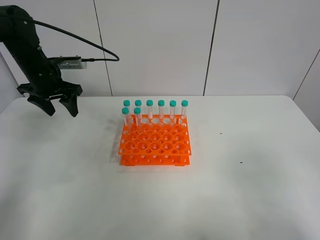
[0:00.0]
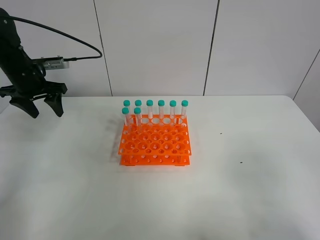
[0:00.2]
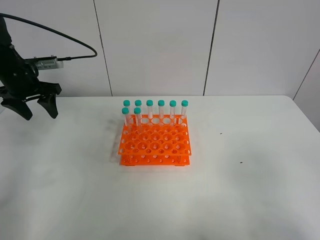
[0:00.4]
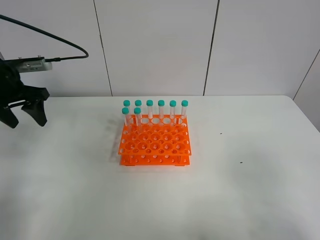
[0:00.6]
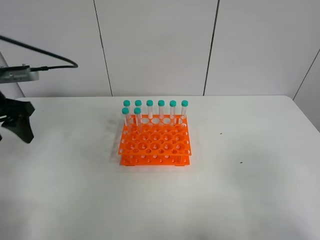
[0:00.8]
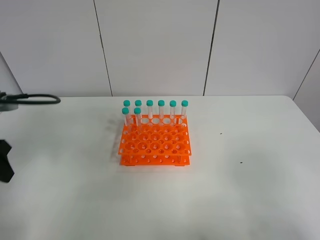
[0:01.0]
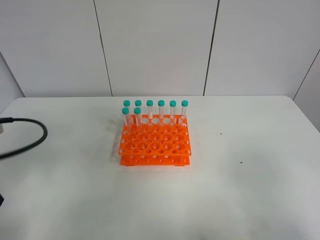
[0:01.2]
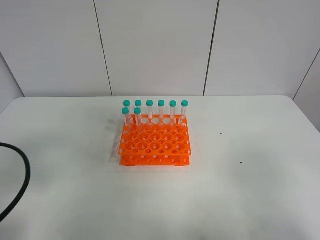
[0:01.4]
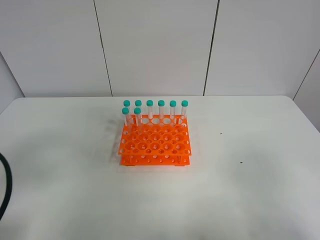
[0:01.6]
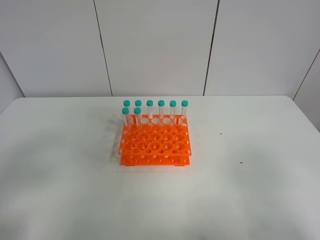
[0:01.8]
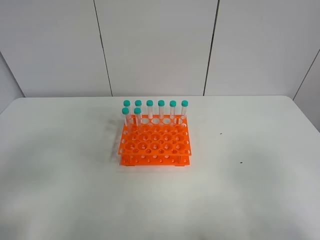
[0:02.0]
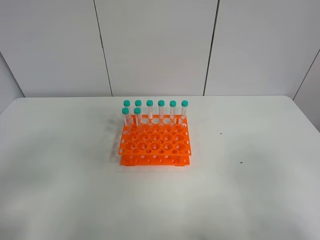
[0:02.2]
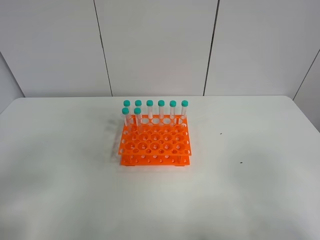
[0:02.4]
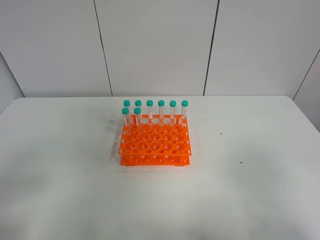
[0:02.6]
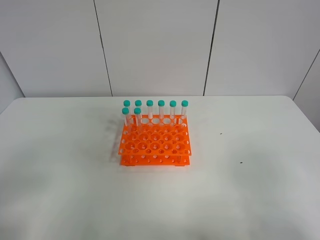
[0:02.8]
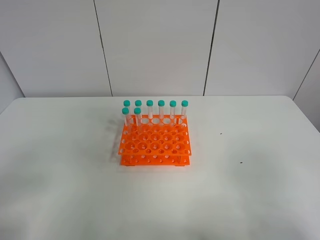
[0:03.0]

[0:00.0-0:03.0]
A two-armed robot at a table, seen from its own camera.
Task of the whole recording: Put the test tube on the table back onto the test tube rack.
0:00.0 to 0:01.6: The left gripper shifts roughly 35 cm backward.

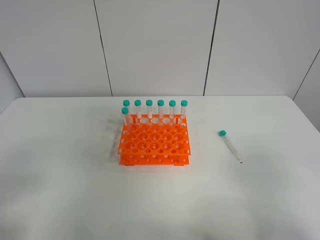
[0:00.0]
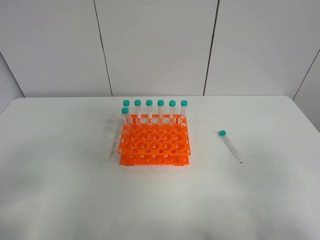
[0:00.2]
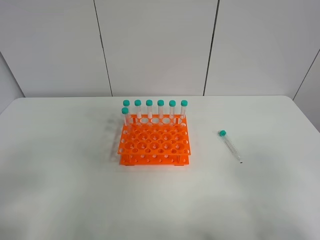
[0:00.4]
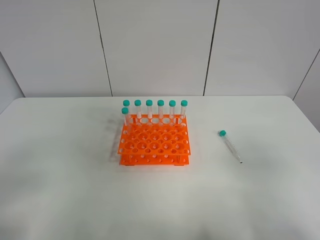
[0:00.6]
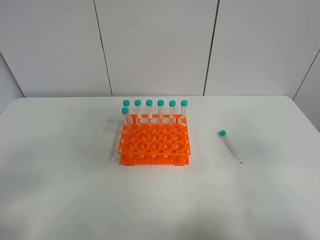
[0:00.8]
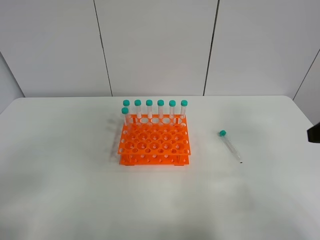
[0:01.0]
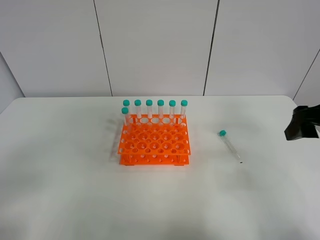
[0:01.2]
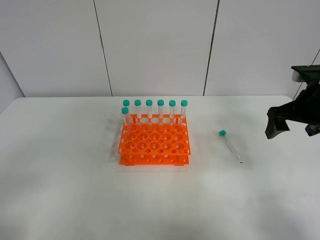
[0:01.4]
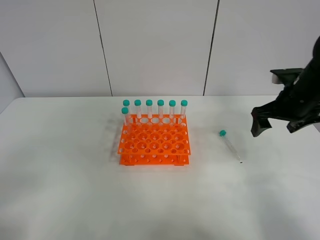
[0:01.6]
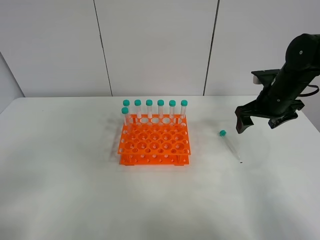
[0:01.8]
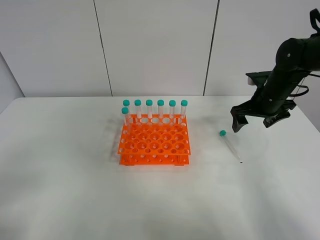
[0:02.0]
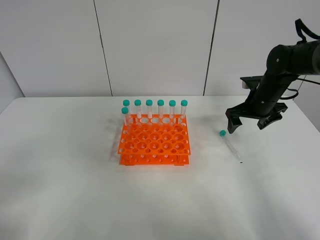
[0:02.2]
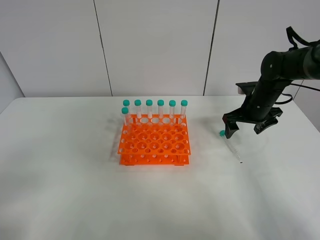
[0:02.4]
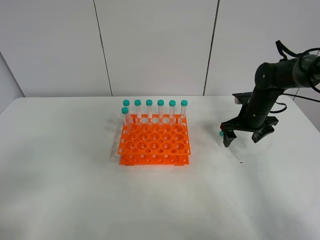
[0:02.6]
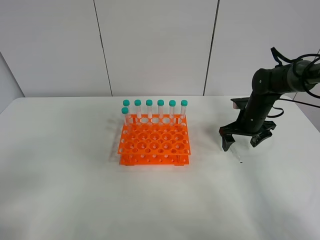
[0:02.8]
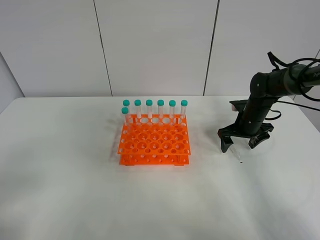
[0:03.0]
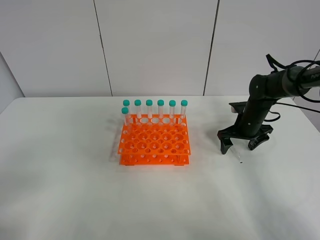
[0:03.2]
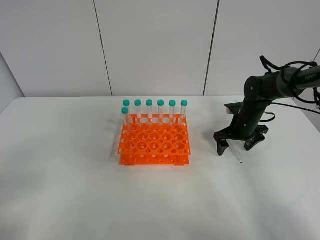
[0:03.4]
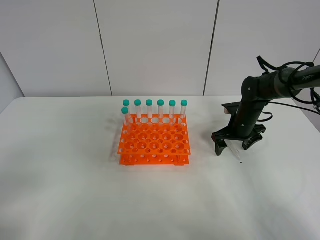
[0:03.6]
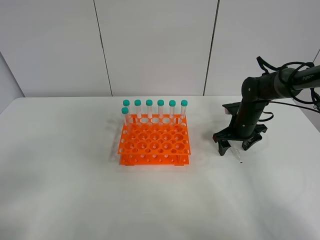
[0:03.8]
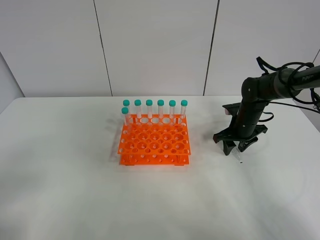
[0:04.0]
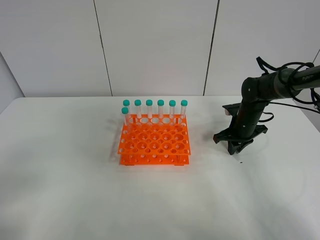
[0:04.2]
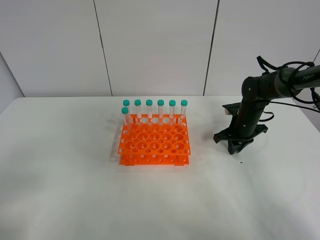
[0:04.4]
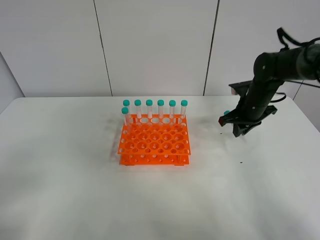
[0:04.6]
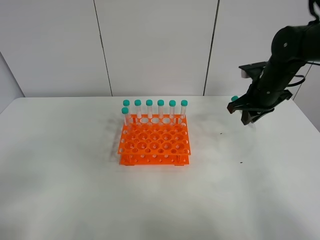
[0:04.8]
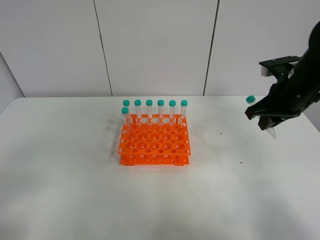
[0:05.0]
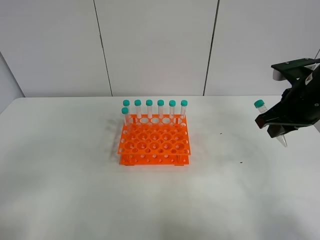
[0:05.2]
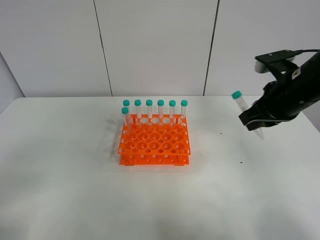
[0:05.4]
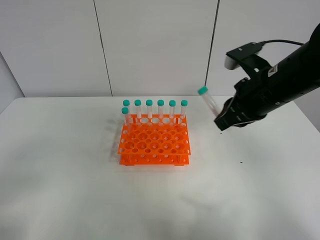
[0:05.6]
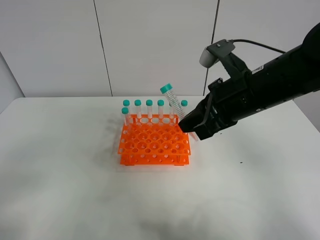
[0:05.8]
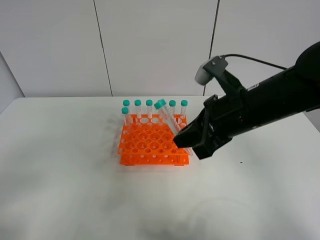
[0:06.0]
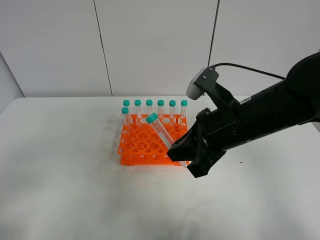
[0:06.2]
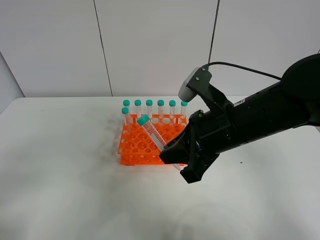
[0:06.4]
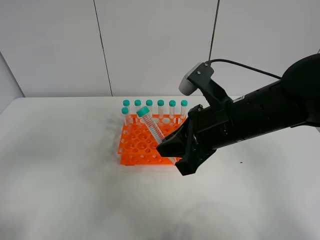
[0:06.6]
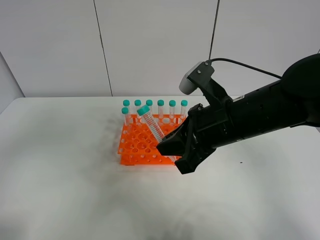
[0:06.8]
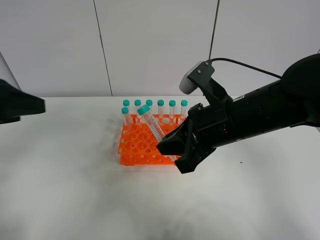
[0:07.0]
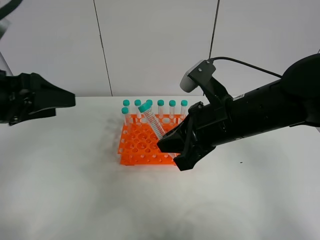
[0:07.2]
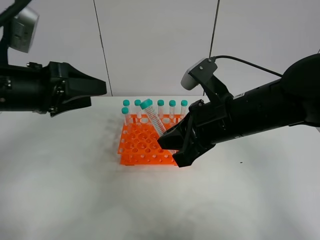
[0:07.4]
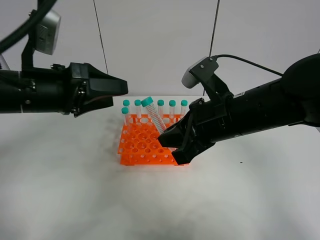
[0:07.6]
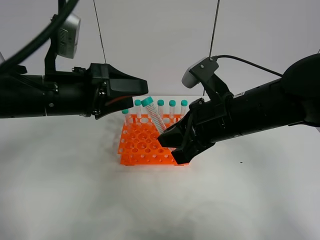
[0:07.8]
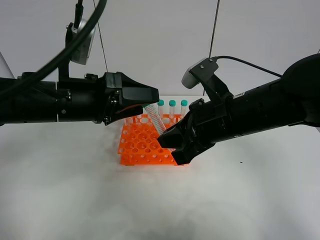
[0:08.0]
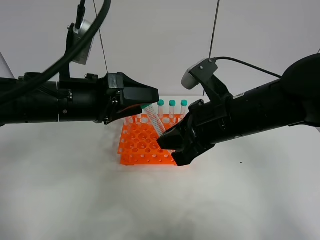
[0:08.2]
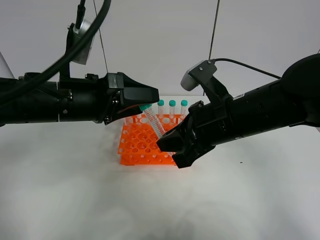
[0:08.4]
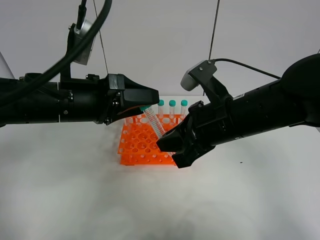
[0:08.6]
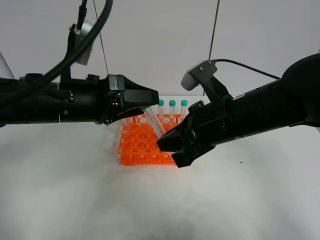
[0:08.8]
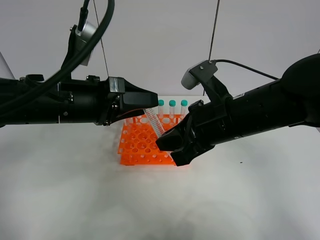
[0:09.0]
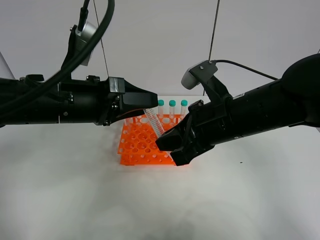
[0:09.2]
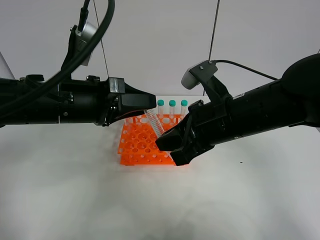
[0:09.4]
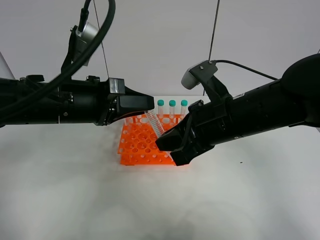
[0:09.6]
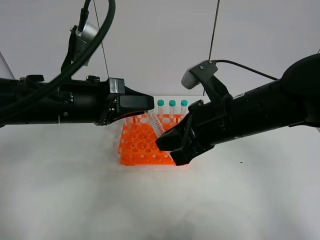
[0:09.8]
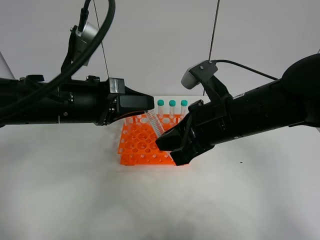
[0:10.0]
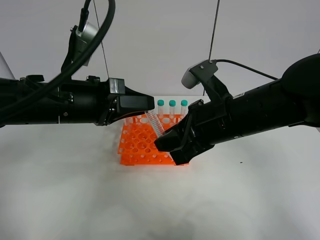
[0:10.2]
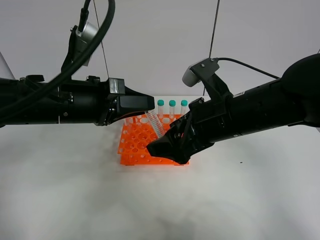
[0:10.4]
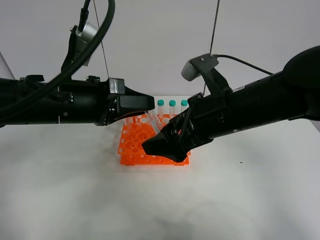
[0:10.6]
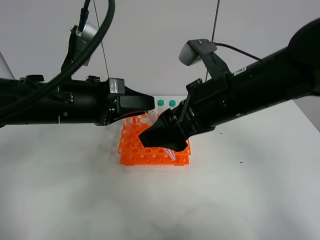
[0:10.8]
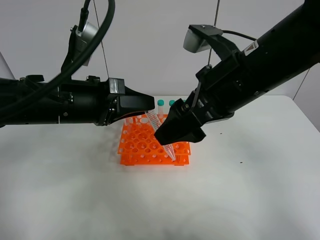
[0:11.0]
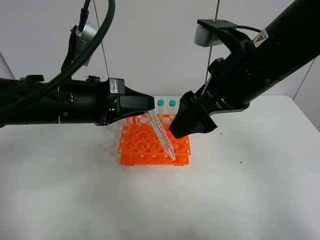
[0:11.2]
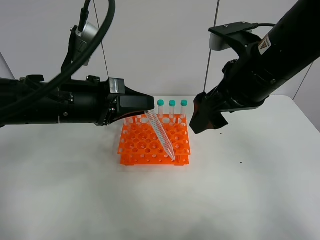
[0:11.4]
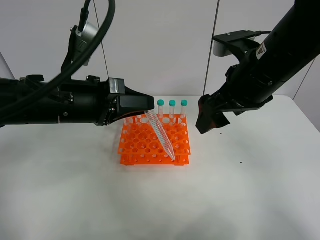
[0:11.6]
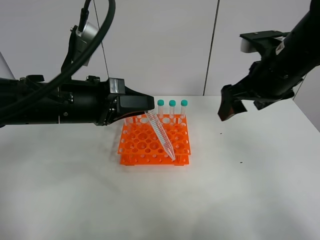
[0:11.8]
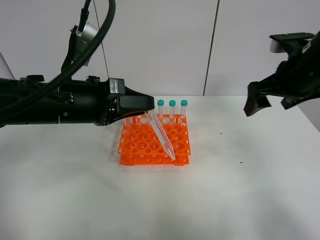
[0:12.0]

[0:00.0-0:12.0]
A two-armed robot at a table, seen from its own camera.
Task of the whole recording: Put the test tube on the table back onto the test tube rack.
Step, 0:00.0 to 0:04.2: Pick up the test tube with the right gripper.
Step, 0:04.4 to 0:10.4: Move the test tube from the right gripper to the left gripper.
0:00.0 to 0:01.6: The right gripper is displaced forward by about 35 cm.
0:01.6 to 0:03.0: The right gripper shifts about 15 cm downward and forward.
0:03.0 to 0:04.4: The right gripper closes up.
0:04.4 to 0:06.0: The right gripper heads backward, upward and to the left, covering roughly 25 cm.
0:06.0 to 0:07.6: The left gripper goes roughly 25 cm forward and to the right.
0:07.6 to 0:09.0: The grippers make only small movements.
0:09.0 to 0:10.4: The left gripper closes its fingers. The right gripper opens up.
0:10.4 to 0:12.0: The right gripper travels to the right and forward by some 15 cm.

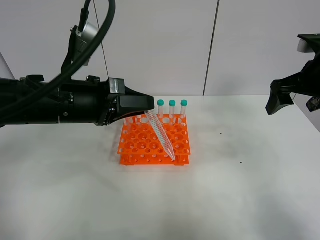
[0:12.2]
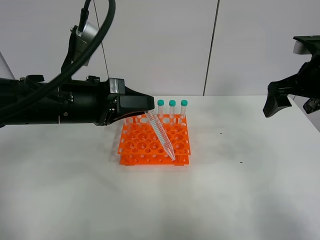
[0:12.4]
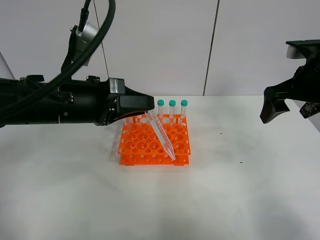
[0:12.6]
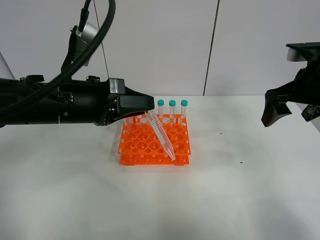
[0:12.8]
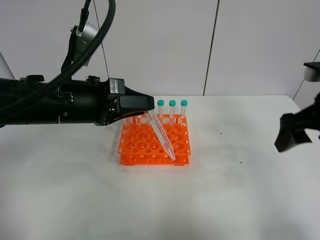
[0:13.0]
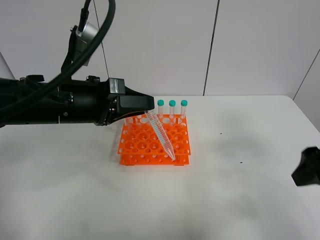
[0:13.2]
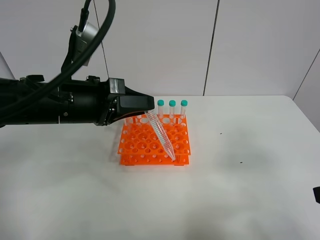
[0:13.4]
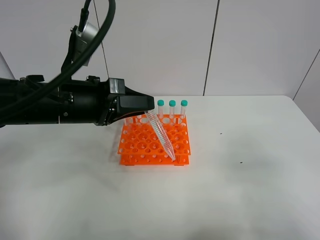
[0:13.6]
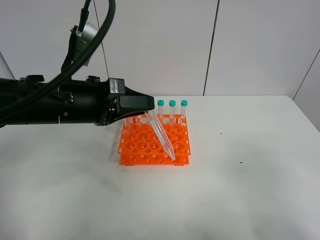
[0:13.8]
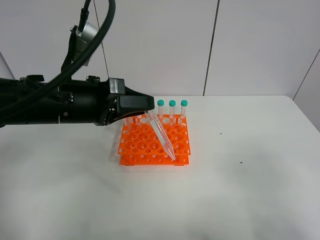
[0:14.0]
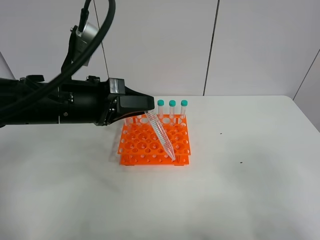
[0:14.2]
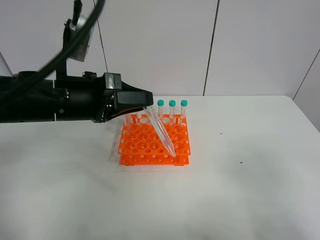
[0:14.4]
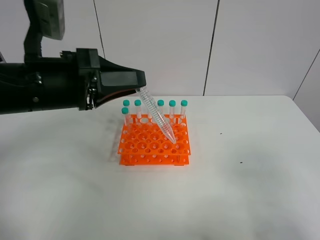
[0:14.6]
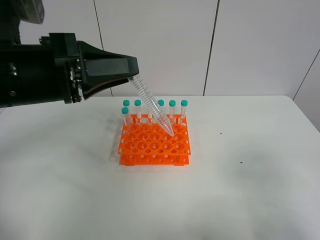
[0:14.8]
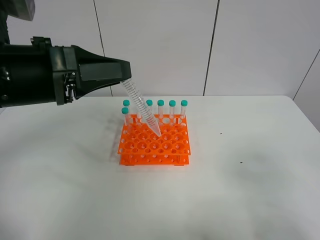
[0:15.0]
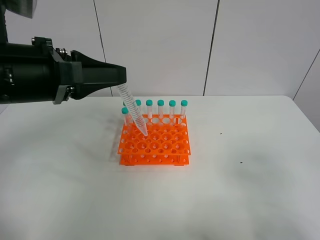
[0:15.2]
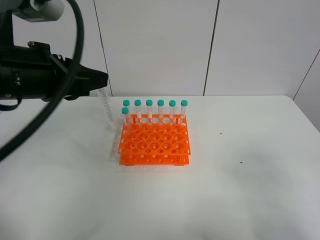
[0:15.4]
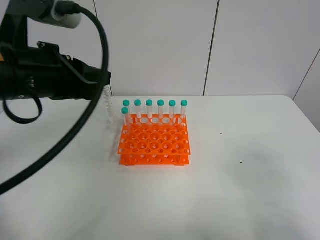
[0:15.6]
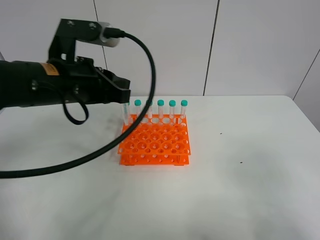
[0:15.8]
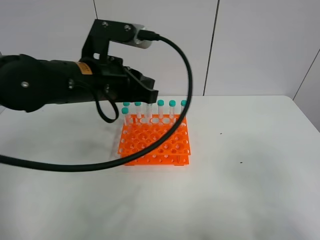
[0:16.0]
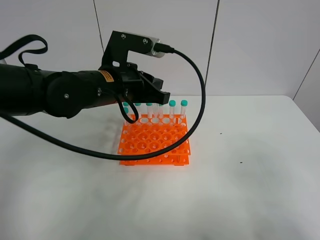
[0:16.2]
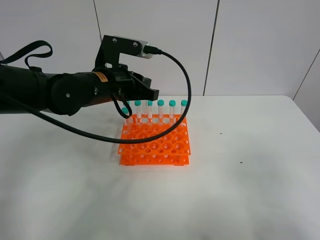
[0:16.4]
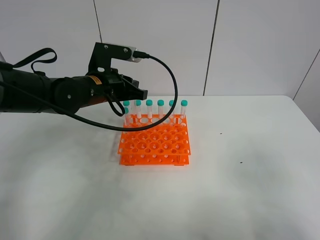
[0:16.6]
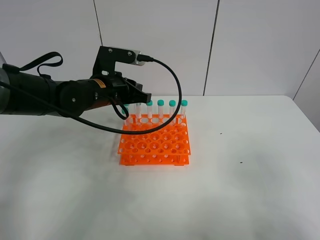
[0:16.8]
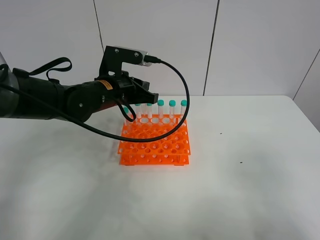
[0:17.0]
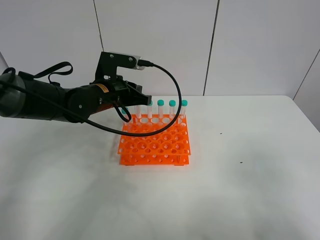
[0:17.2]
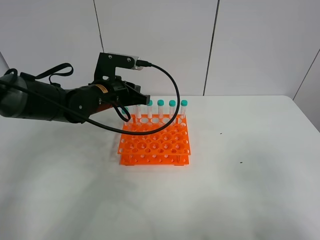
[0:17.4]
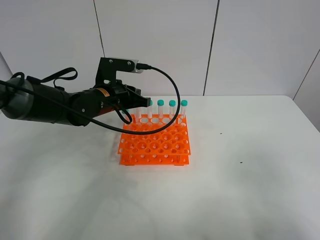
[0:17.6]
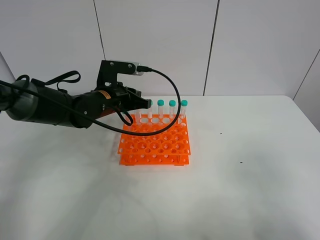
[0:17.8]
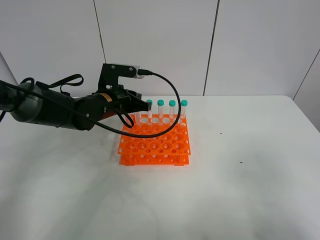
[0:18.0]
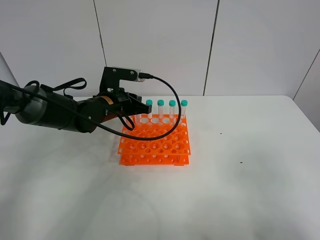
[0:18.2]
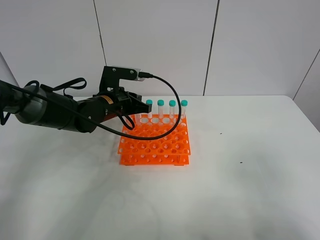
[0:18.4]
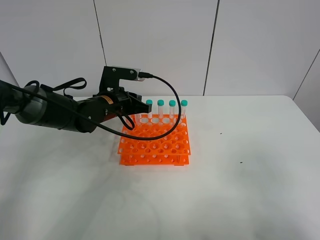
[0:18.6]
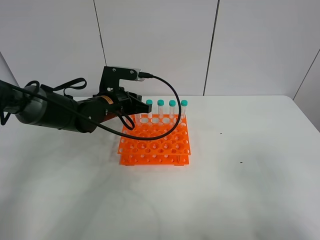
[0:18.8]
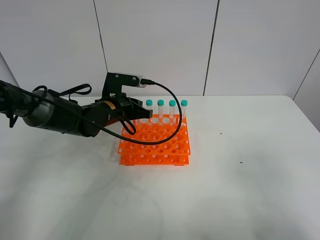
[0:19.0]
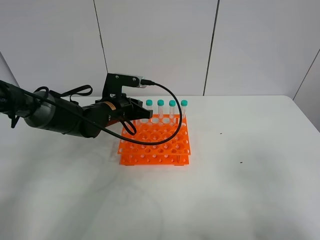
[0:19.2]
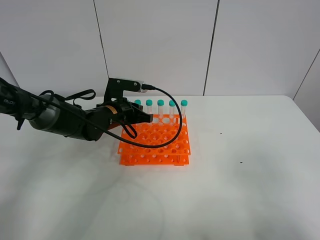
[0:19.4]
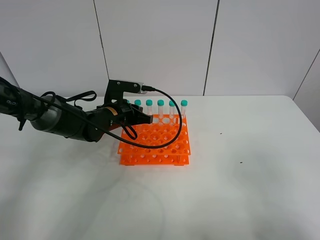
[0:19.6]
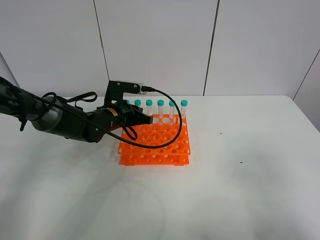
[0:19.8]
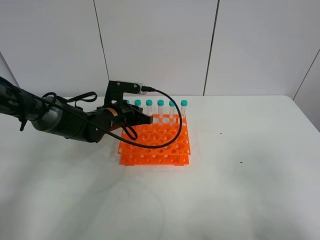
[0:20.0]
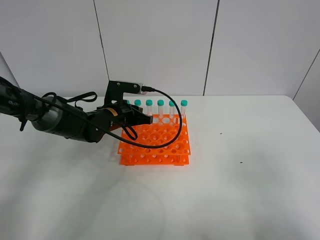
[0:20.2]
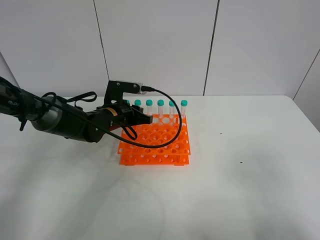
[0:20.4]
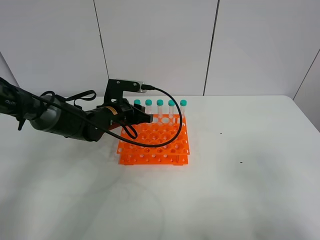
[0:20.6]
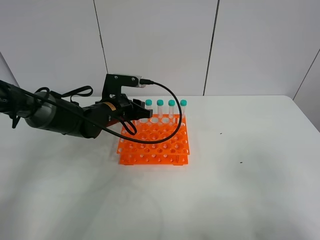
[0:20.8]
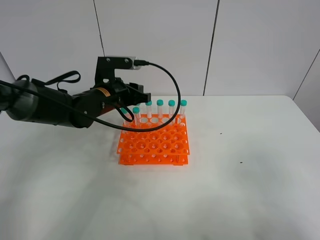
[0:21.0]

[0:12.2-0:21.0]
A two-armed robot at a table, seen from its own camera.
Task of the whole recording: Put the test tube on the table back onto the test tube rack.
Step, 0:12.2 to 0:20.4: Place the test tube on the test tube rack with the left gripper.
0:12.2 to 0:13.6: The right gripper goes about 25 cm backward.
0:13.6 to 0:15.2: The left gripper heads upward, covering approximately 5 cm.
0:15.2 to 0:16.6: The left gripper is displaced forward and downward by about 20 cm.
0:16.6 to 0:18.0: The left gripper changes place by roughly 5 cm.
0:18.0 to 0:19.6: The grippers make only small movements.
0:19.6 to 0:21.0: The left gripper is displaced upward by about 5 cm, and opens its fingers.
